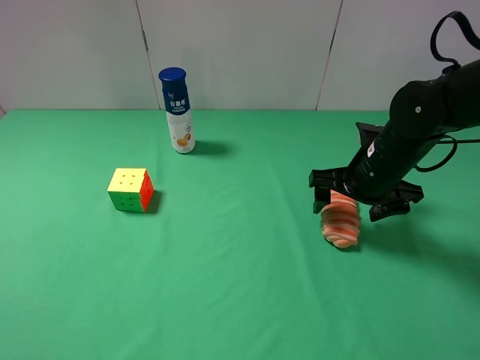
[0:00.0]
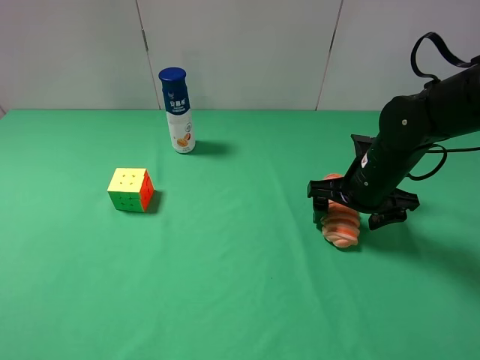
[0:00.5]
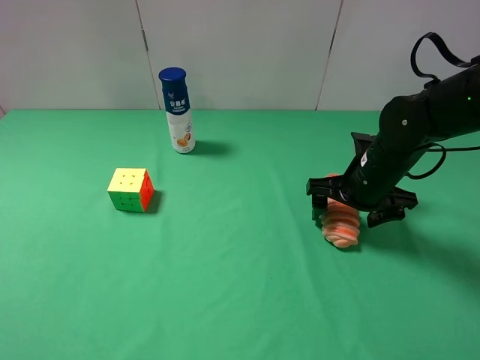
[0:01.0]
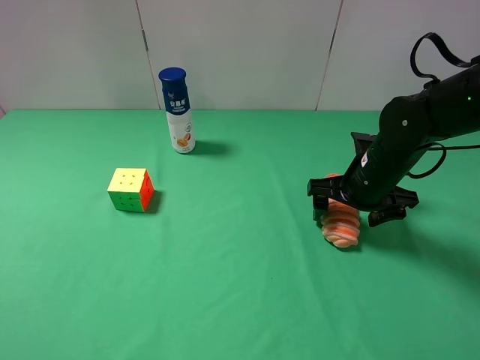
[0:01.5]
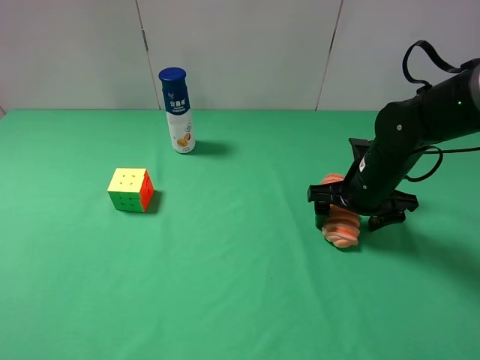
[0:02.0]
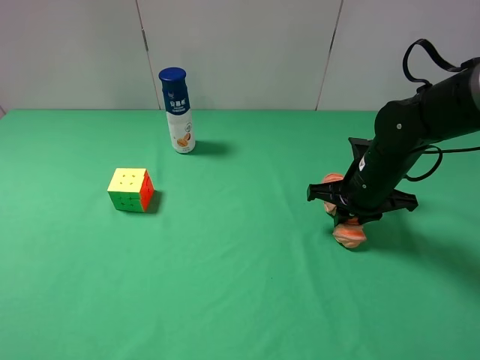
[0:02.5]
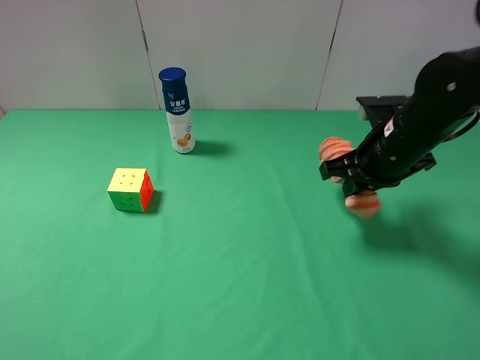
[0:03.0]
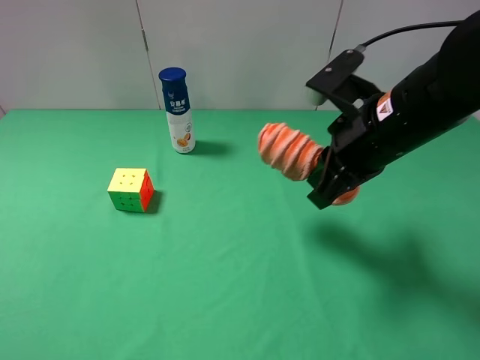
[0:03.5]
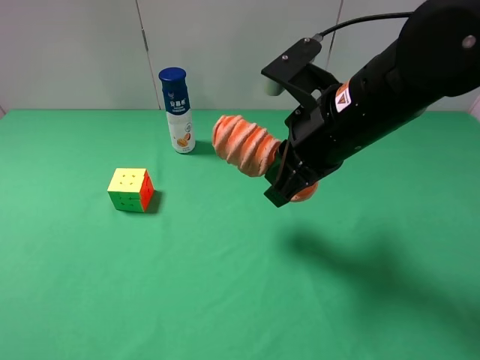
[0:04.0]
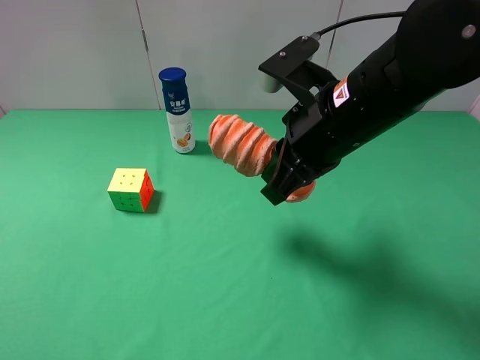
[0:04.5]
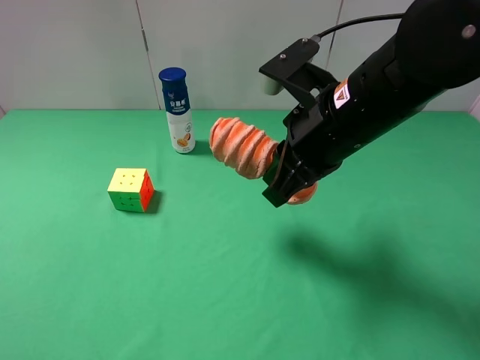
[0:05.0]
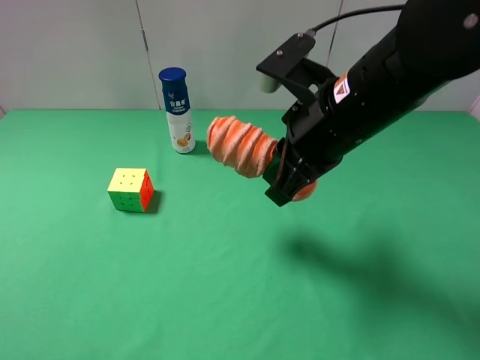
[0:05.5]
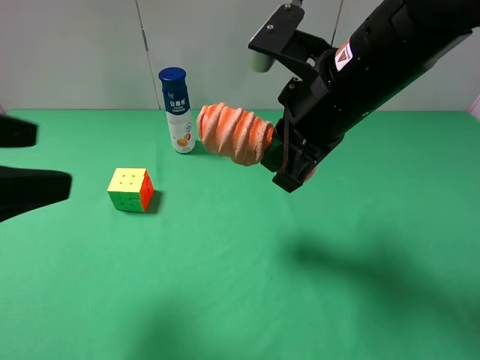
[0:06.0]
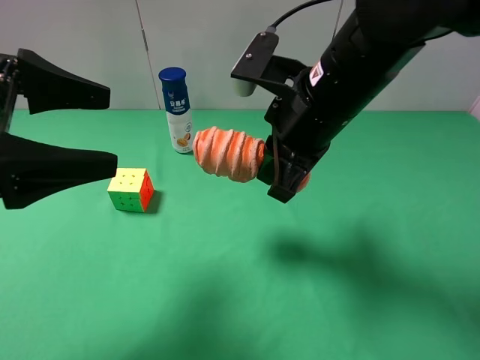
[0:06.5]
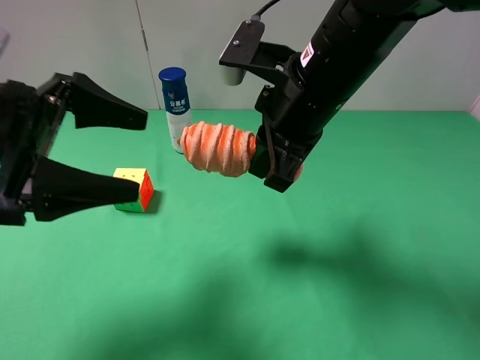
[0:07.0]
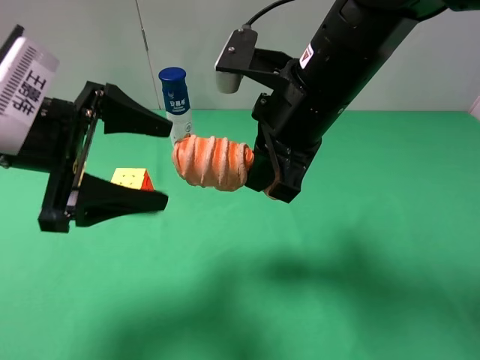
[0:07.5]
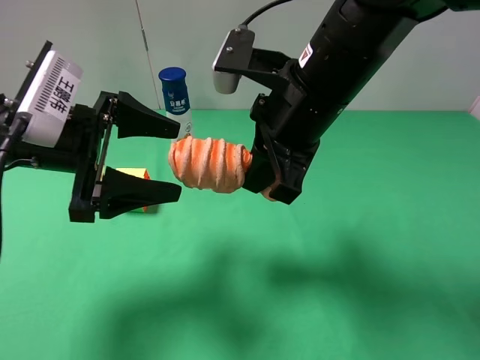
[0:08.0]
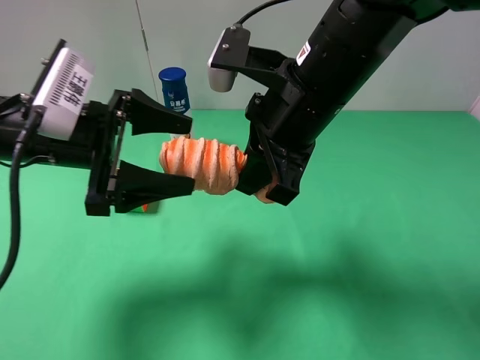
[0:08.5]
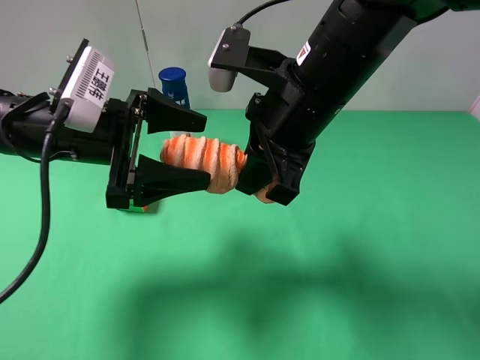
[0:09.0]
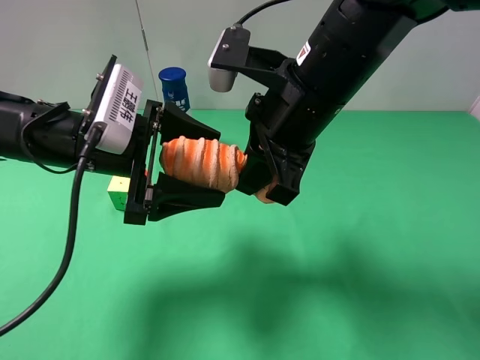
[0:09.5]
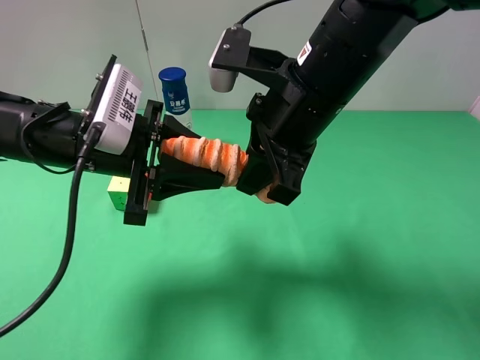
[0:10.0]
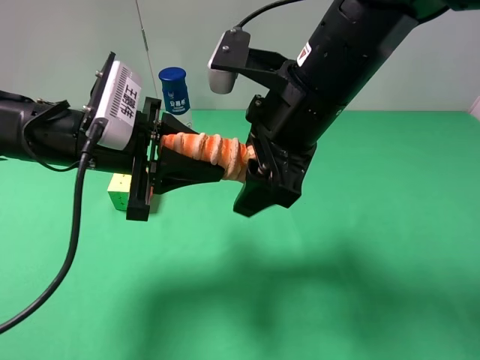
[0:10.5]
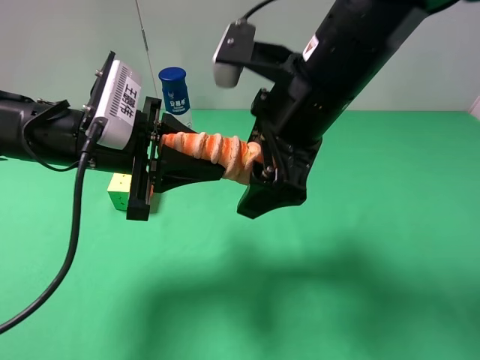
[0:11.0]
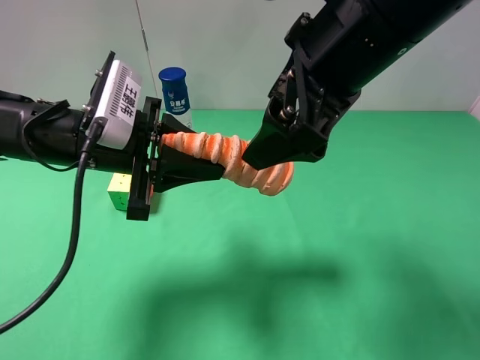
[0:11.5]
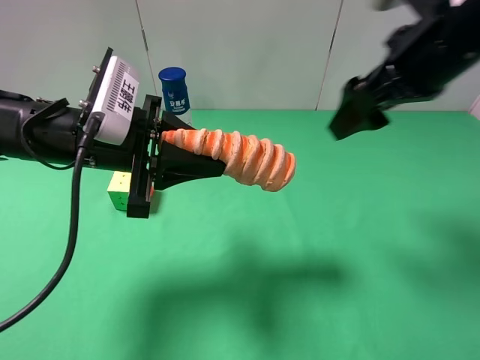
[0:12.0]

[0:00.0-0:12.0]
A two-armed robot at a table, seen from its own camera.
Task of the whole recording: use the right gripper to pick up the item and transfer it from the right gripper to the left gripper.
Step, 0:00.0 to 0:02.0: Use the right gripper to grab the bread on the right side of the table.
Step, 0:02.5 to 0:10.5: Pass the bread to the left gripper.
0:00.0 to 0:02.0: The grippers move only a little.
0:02.0 to 0:04.0: The right gripper shifts about 20 cm upward, to the left and backward, and closes its fingers.
0:04.0 to 0:06.0: The left gripper moves forward, some 15 cm.
0:06.0 to 0:08.0: The left gripper heads forward, downward and to the right, covering some 15 cm.
0:08.0 to 0:10.0: The left gripper closes its fingers.
0:10.0 to 0:12.0: The right gripper is displaced to the right by about 15 cm, and opens.

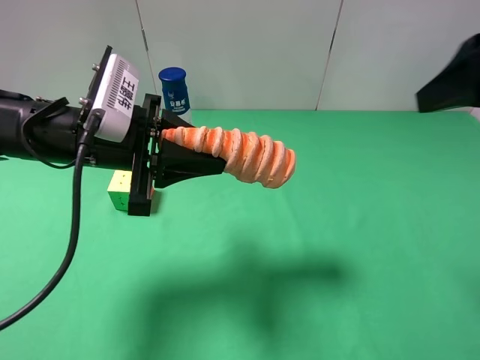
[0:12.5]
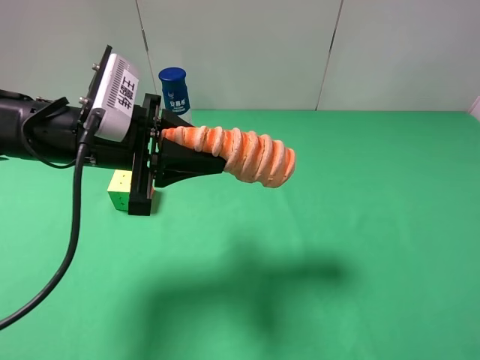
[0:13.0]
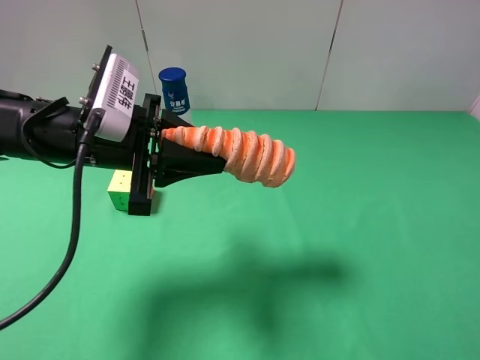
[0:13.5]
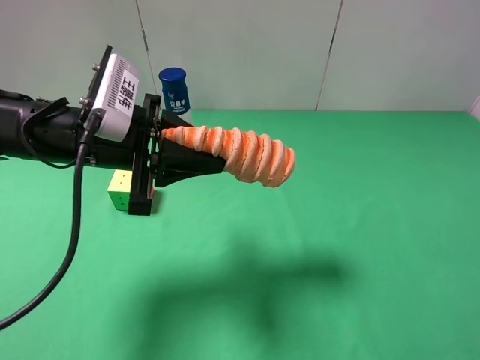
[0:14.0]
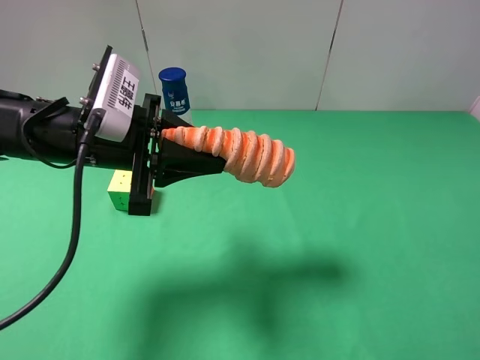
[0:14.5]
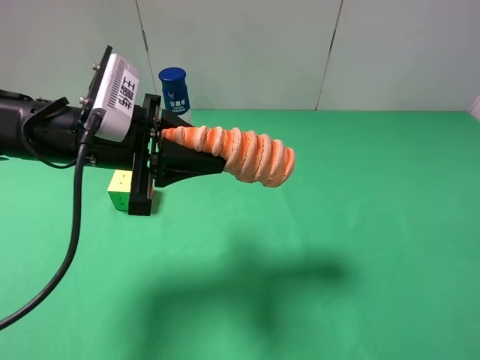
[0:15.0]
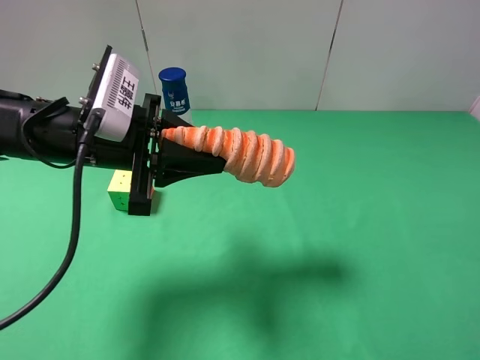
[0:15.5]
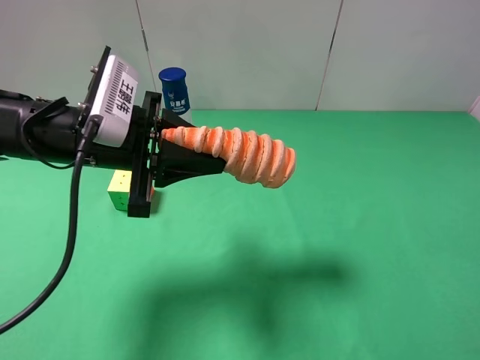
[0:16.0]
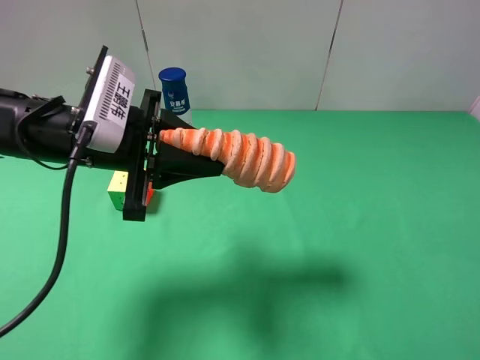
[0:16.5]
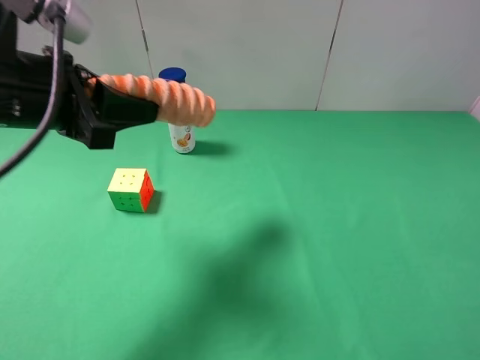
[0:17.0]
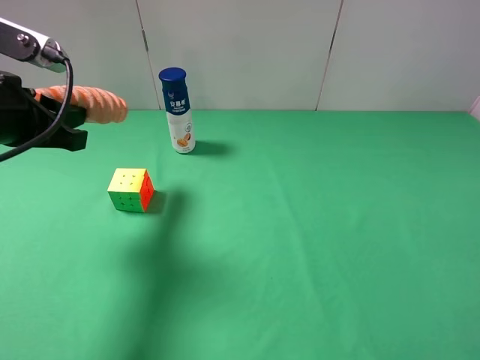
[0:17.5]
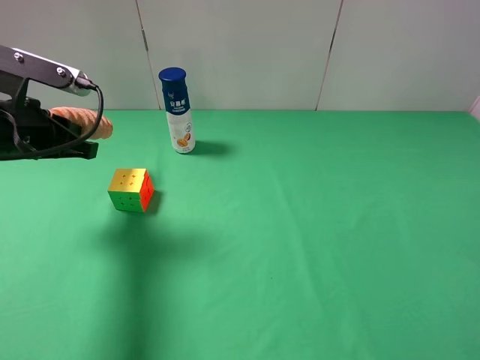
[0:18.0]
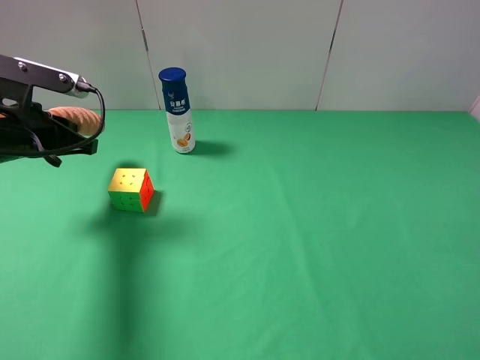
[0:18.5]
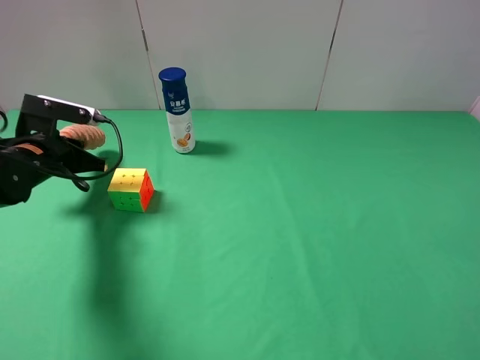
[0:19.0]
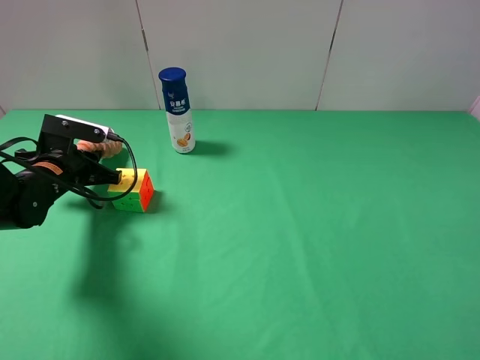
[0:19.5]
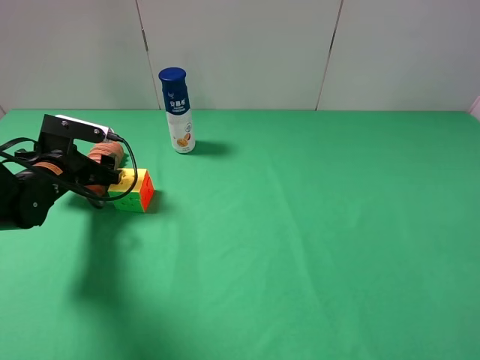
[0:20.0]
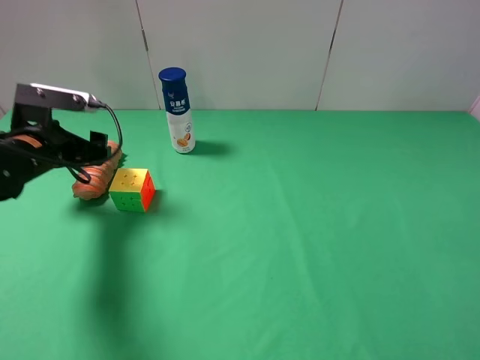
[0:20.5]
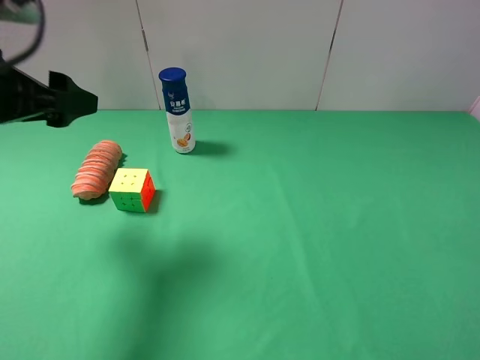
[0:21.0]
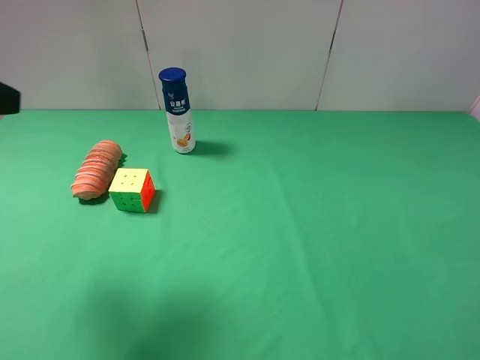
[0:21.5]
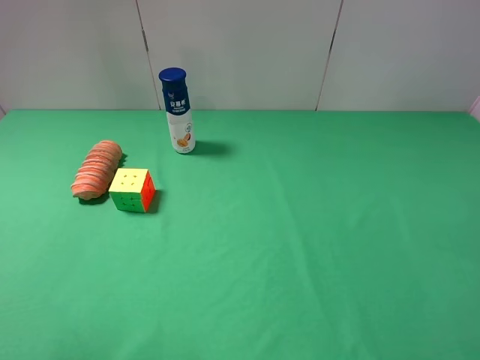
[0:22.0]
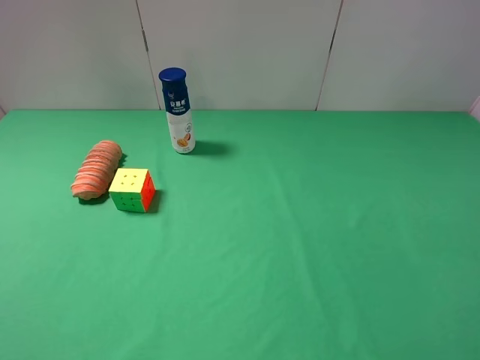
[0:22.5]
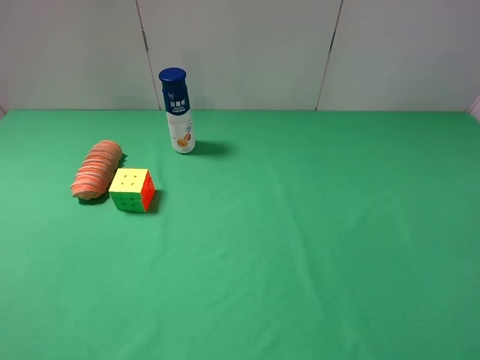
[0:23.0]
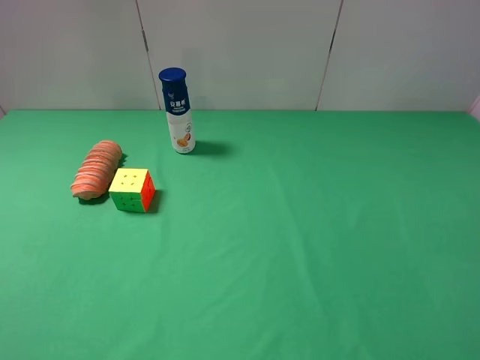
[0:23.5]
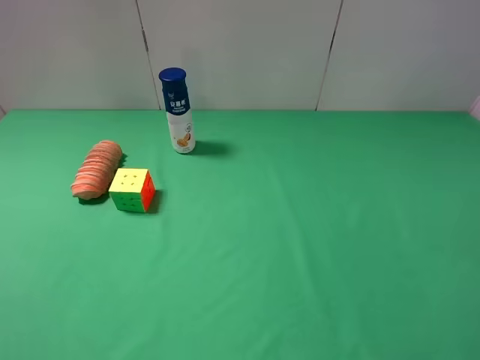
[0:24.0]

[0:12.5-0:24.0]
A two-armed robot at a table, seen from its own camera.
Task of the whole recording: use the right gripper to pick up the item and transfer it from the right gripper to the left gripper.
Step, 0:12.5 to 0:20.0: The left gripper places bread on the left side of the table.
0:12.5 to 0:14.5: The right gripper goes about 20 cm backward and downward.
0:14.5 to 0:16.5: There are only small adjustments of the grippers.
0:16.5 to 0:18.5: The left gripper is displaced to the left by some 10 cm.
0:18.5 to 0:20.0: The left gripper heads downward, covering some 10 cm, and opens its fingers.
0:20.0 to 0:22.0: The left gripper heads upward and backward, covering about 35 cm.

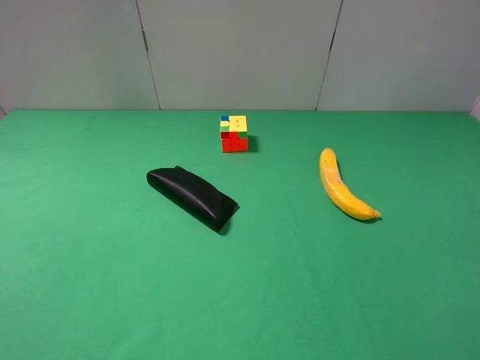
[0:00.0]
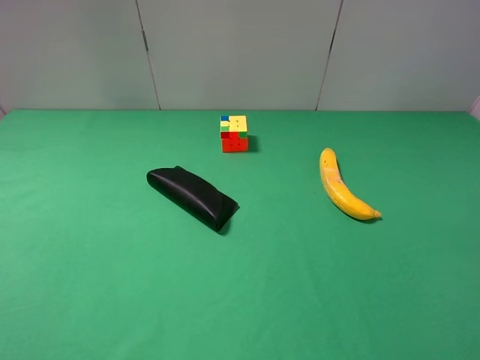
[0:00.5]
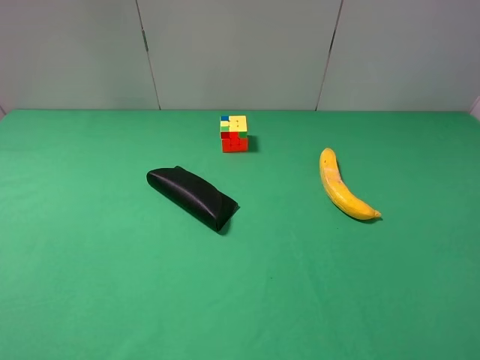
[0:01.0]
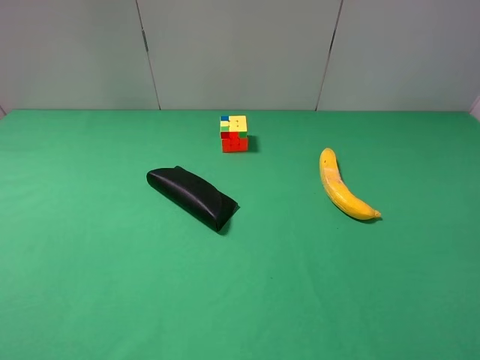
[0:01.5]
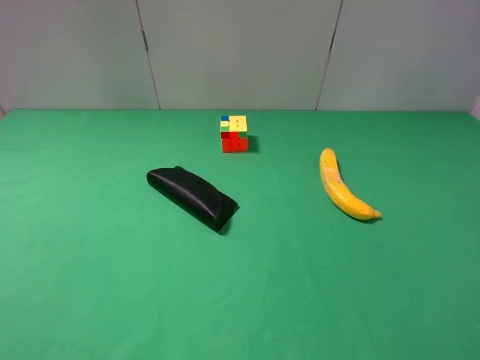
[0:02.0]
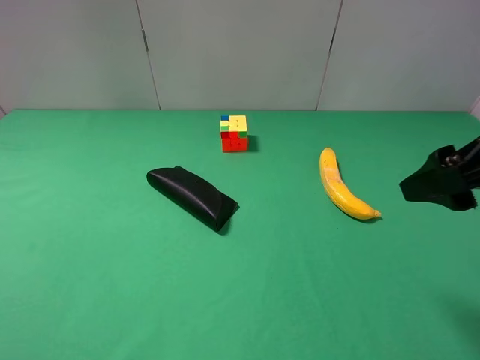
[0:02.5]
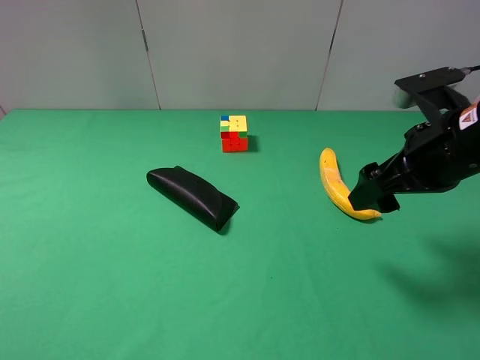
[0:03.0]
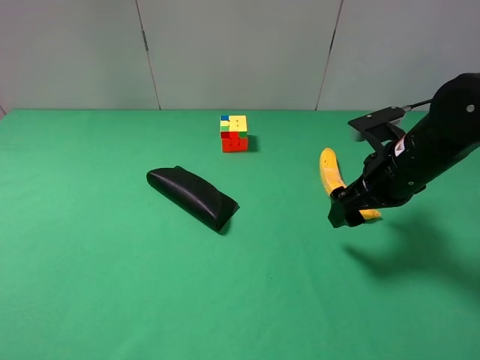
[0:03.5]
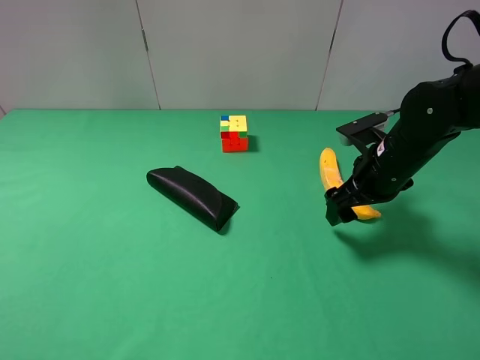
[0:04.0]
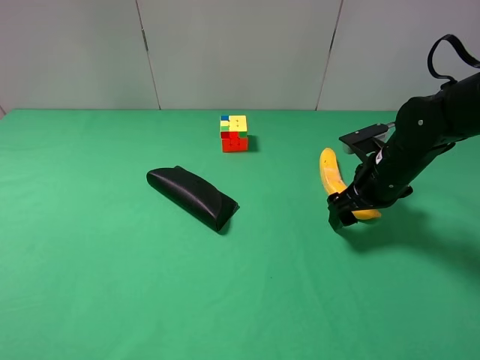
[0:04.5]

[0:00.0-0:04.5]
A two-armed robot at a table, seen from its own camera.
Task of the whole recording: use the right gripper to pick up the item and transfer it from the right gripper to the left gripper.
0:02.0 to 0:04.5: The right gripper heads forward and downward, covering about 30 cm.
